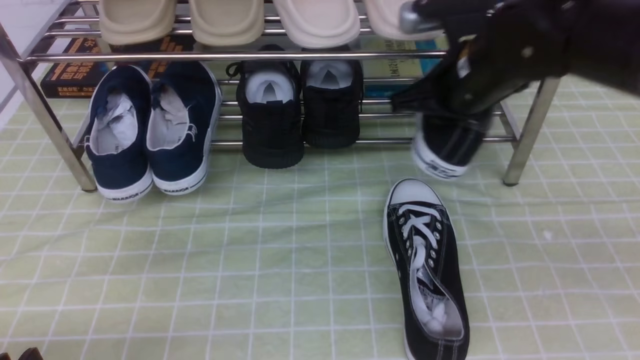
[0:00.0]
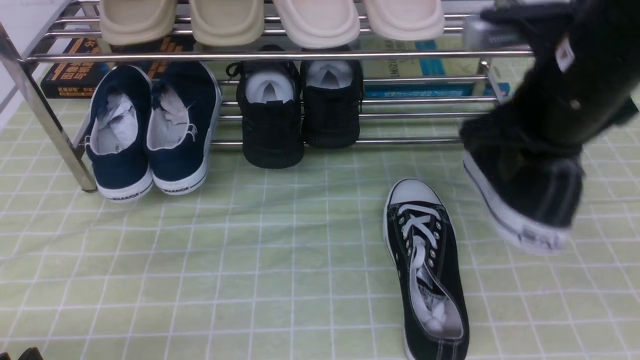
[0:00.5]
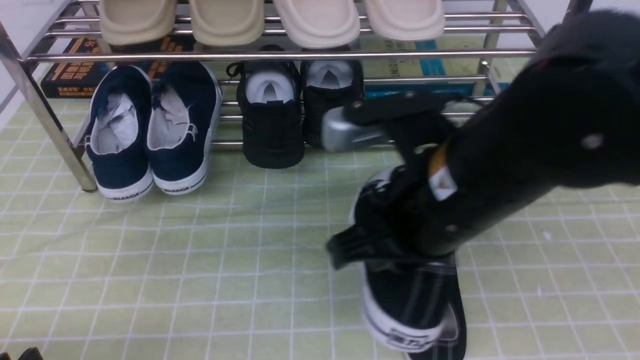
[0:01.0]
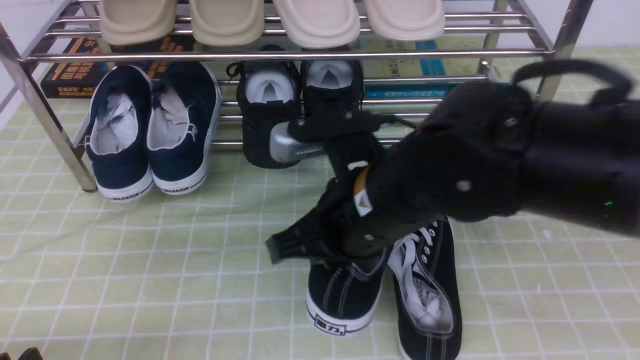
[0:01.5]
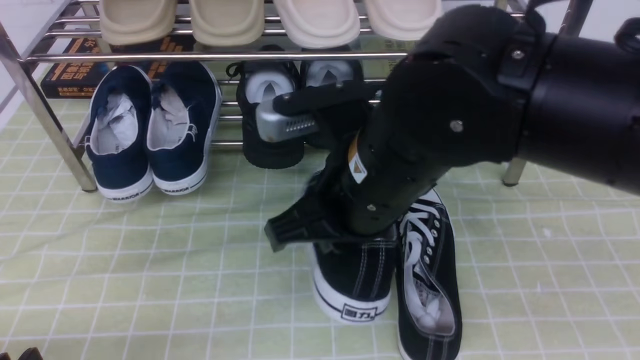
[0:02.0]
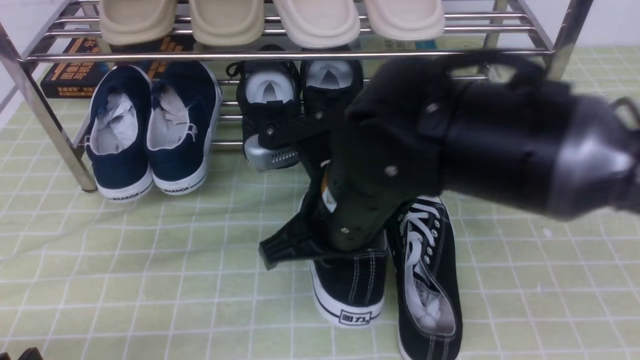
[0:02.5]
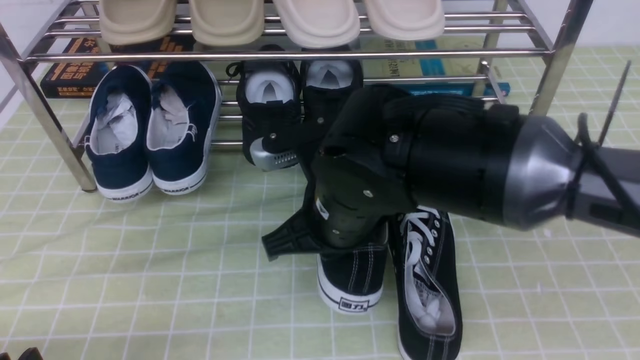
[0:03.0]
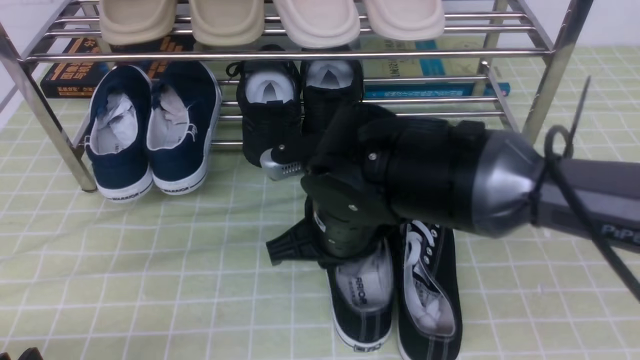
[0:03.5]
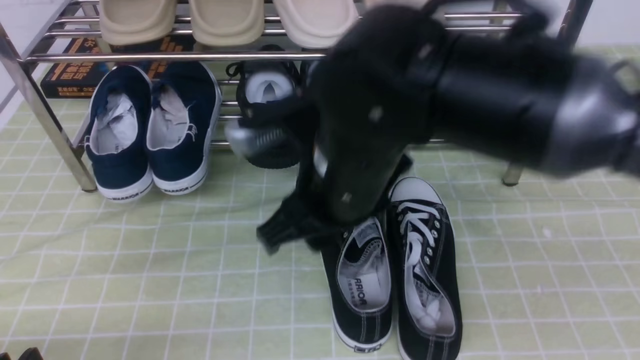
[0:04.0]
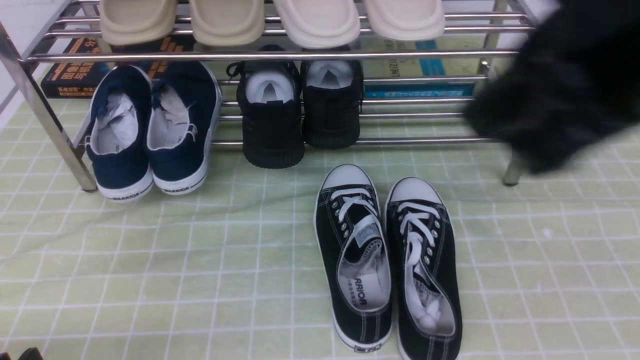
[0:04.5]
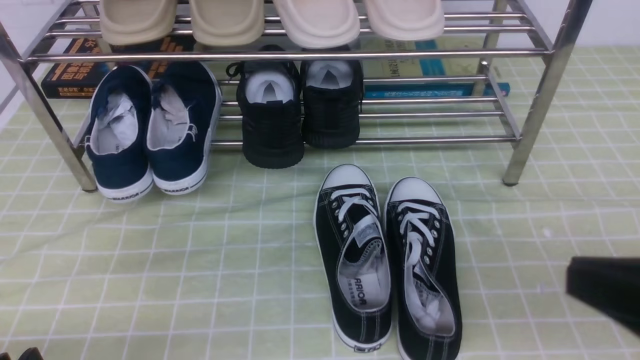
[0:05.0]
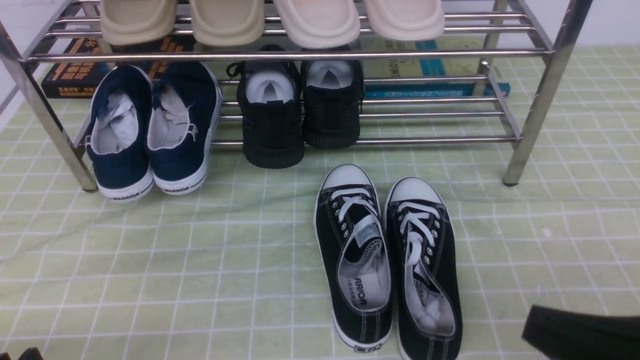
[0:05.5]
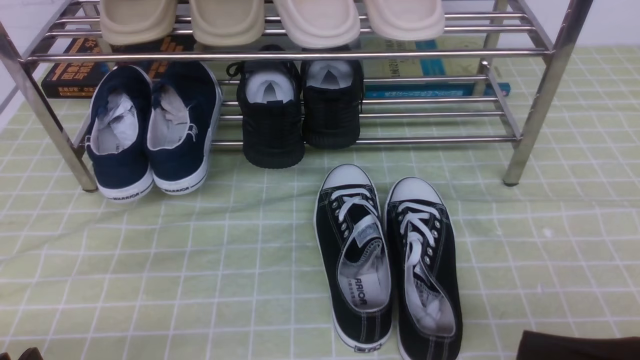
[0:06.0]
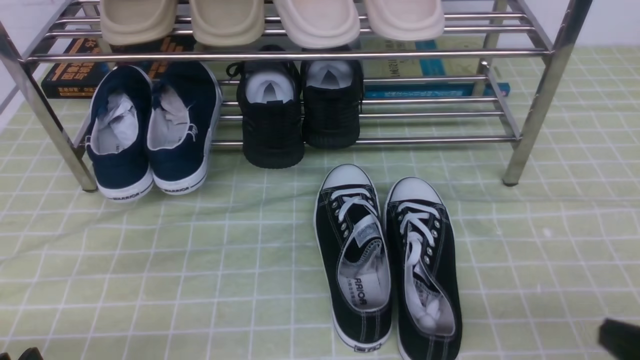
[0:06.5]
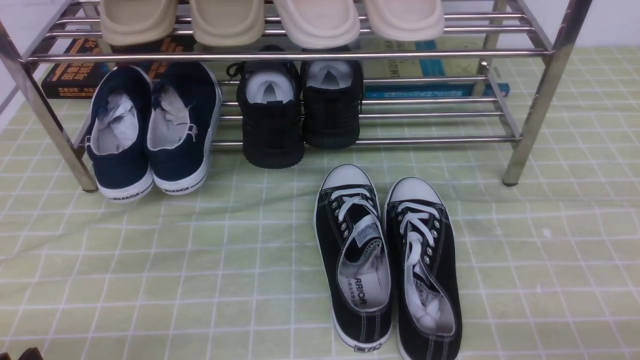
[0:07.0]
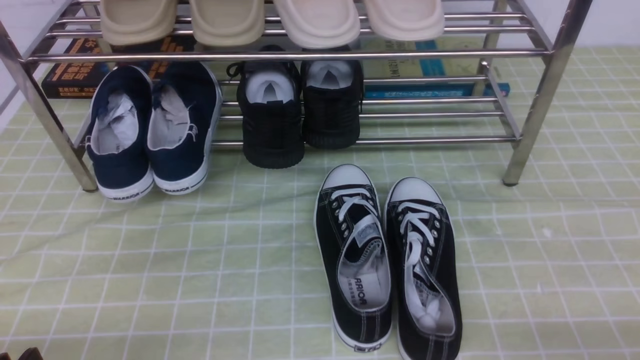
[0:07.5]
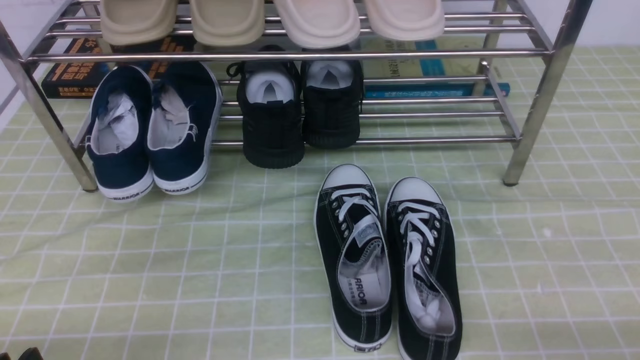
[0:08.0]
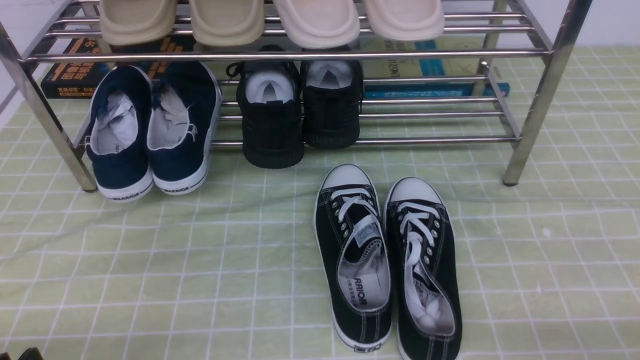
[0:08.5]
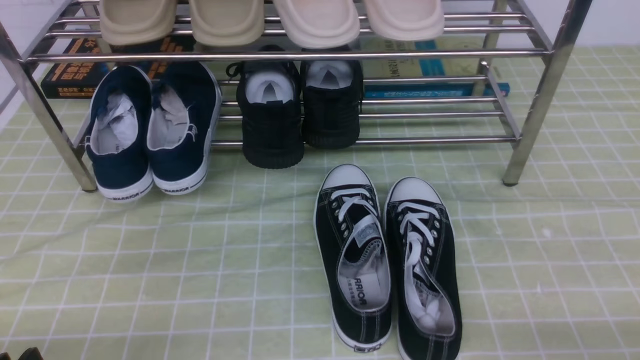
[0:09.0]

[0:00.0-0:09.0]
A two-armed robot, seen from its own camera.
Step, 0:00.0 to 0:03.5: use the right arm to take out the clamped shoe from the shoe rack and put it down.
0:00.0 to 0:02.0: The right gripper goes approximately 20 cm backward and to the left.
0:02.0 to 0:04.5: The right gripper travels upward, to the right and backward by some 20 cm, and opens, then closes once more.
0:04.5 to 0:07.0: The right gripper heads downward and to the right, covering approximately 35 cm.
0:07.0 to 0:09.0: Both grippers stay about where they are.
